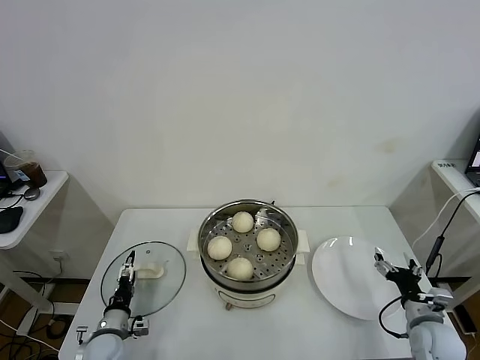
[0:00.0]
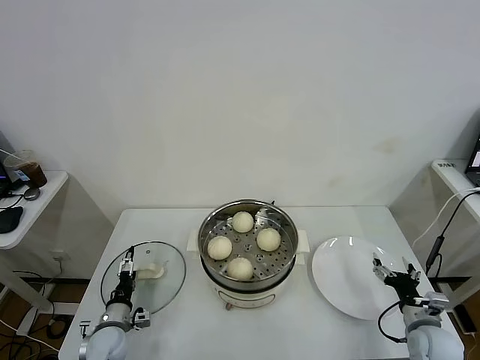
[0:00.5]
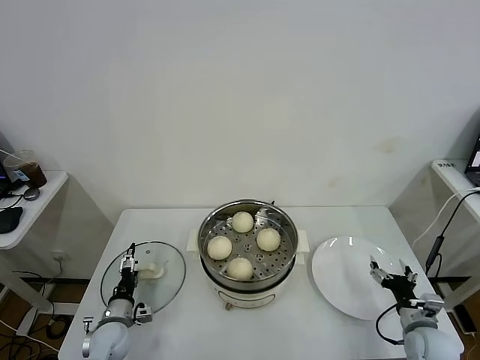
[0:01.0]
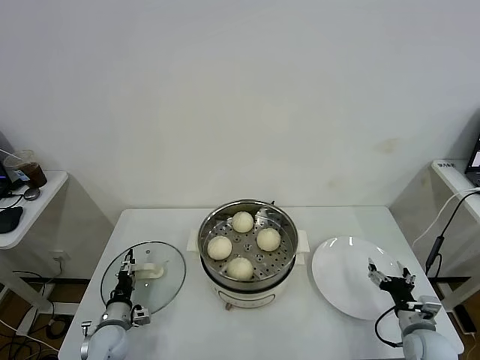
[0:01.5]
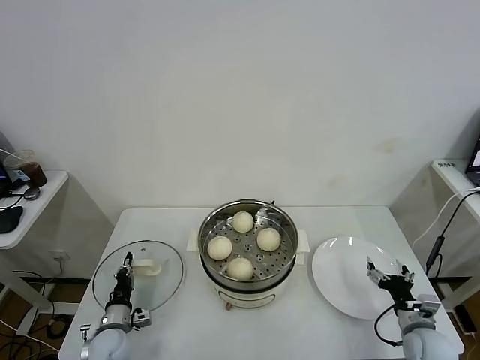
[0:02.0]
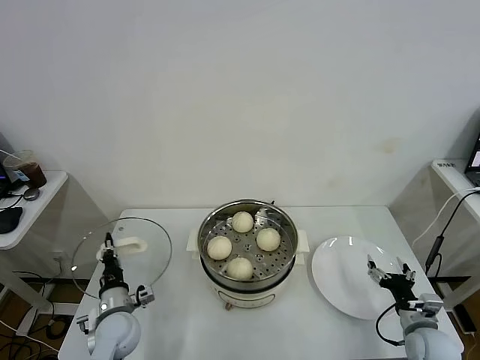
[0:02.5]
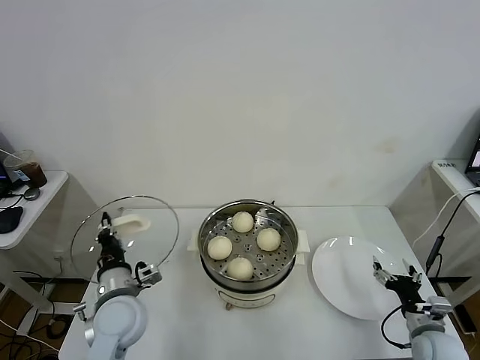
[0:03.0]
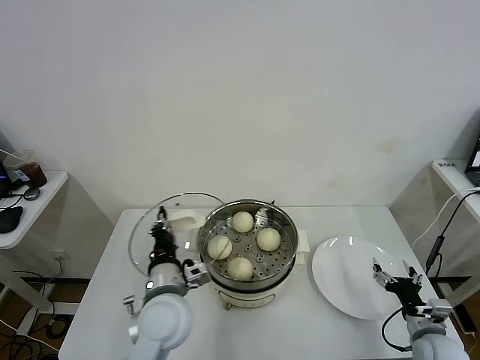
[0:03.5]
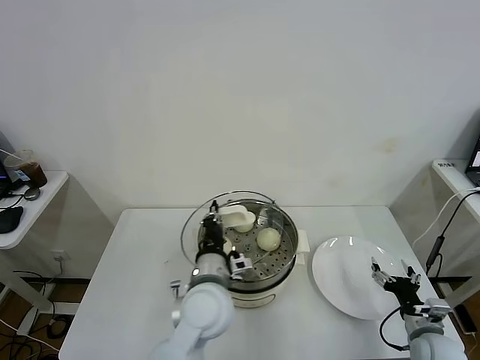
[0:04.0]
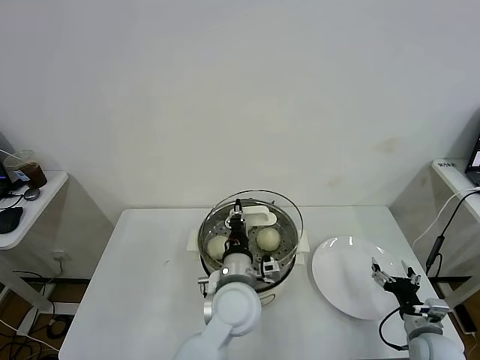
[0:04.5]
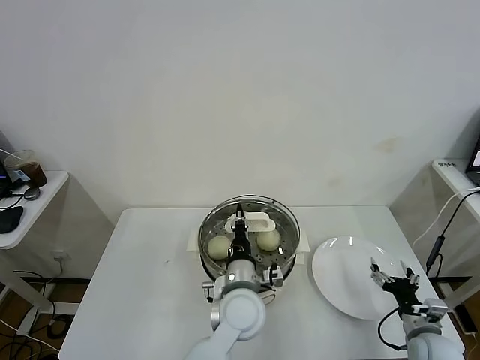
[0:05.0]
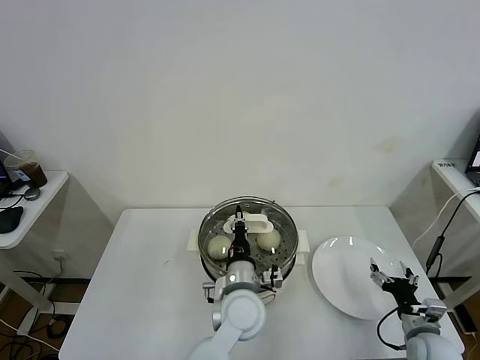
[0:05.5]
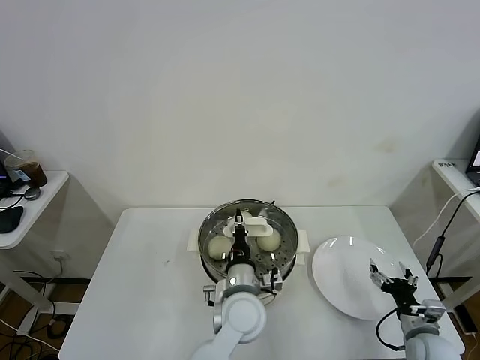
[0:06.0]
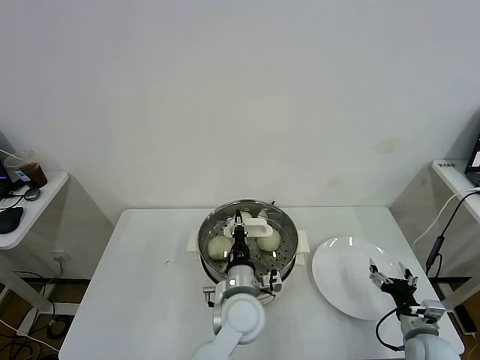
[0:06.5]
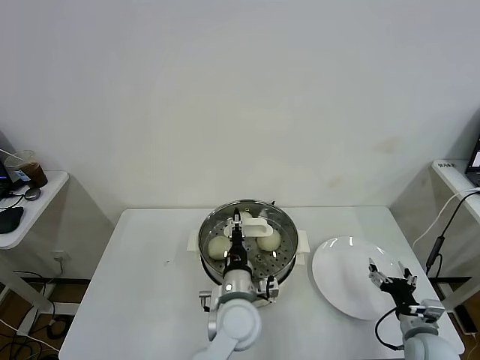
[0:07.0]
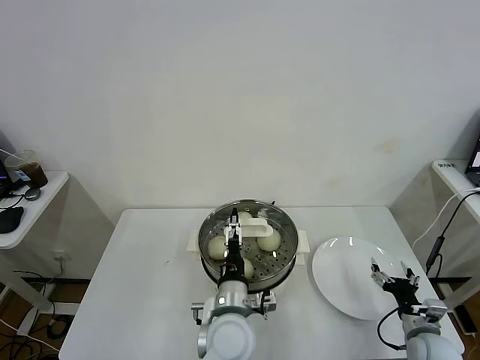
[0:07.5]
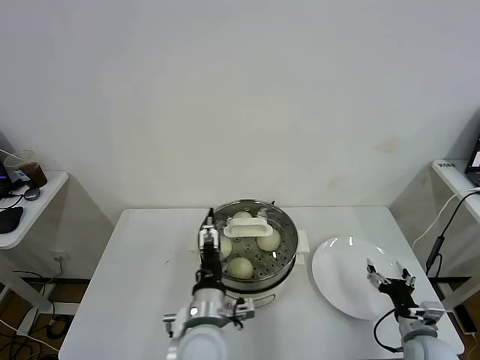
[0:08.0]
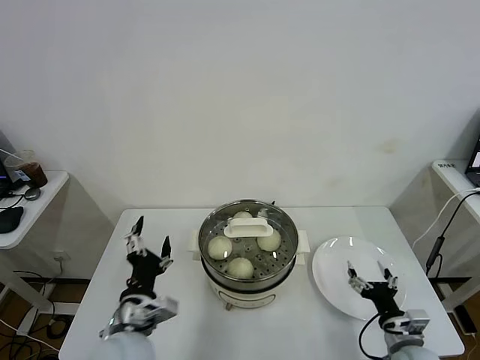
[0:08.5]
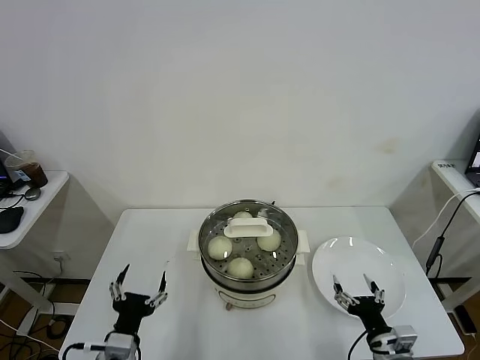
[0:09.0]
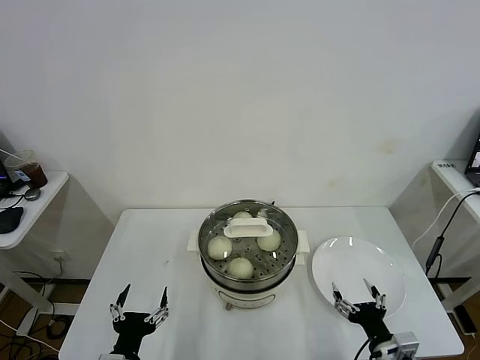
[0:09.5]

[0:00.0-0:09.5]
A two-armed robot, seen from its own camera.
Task of the whole recording: take steamed baozi put them in steamer.
Step, 0:02.5 to 0:07.0: Place the pot lid on the steamer with left gripper.
0:00.0 to 0:02.0: The left gripper closes its fingers.
0:02.0 to 0:04.0: The left gripper goes some 35 cm to the right and upward.
0:04.0 to 0:05.5: The left gripper moves to the right and downward, some 10 cm.
0:05.5 to 0:07.5: The left gripper opens up.
0:07.5 to 0:09.5: The left gripper moves to the left and backward, about 25 cm. Meanwhile the right gripper shifts some 15 cm to the left and backward.

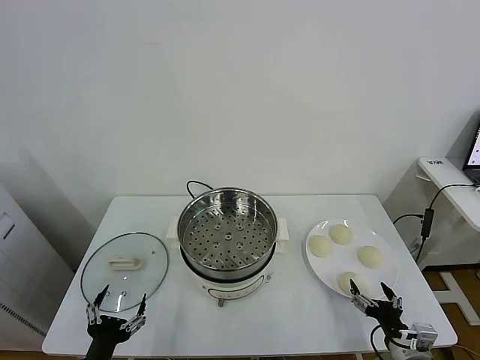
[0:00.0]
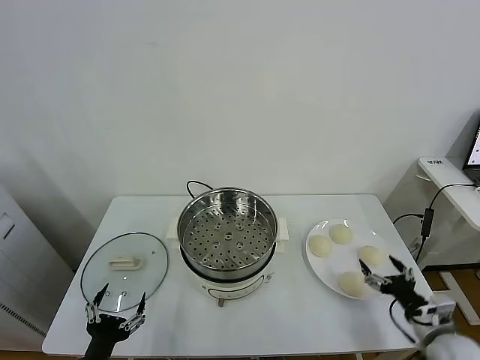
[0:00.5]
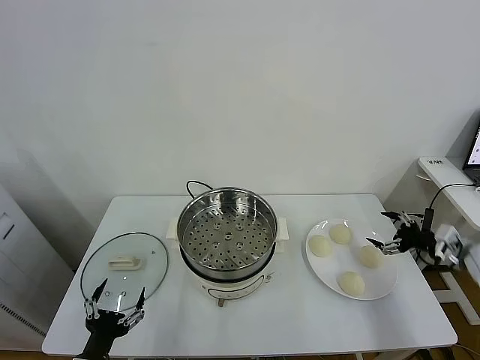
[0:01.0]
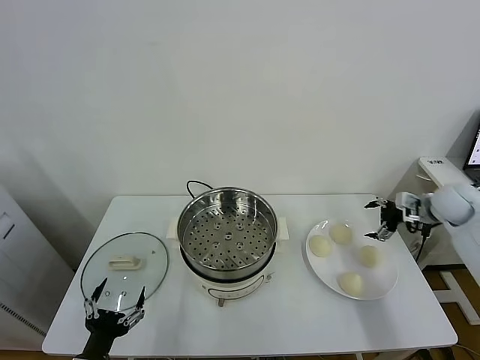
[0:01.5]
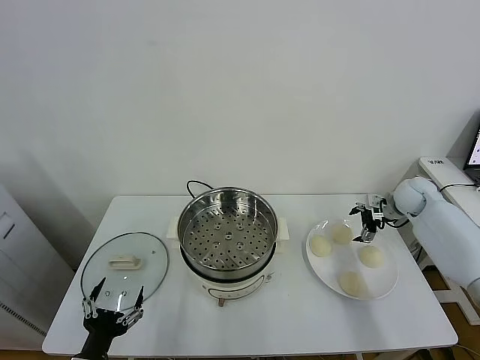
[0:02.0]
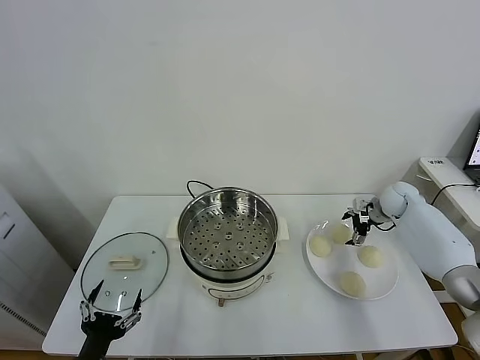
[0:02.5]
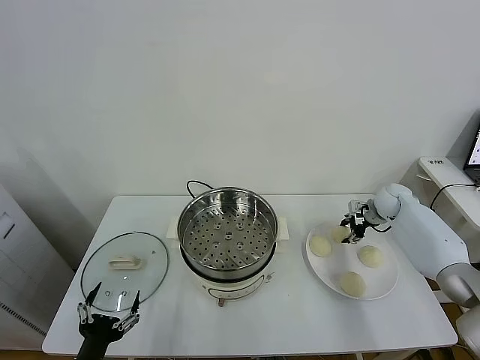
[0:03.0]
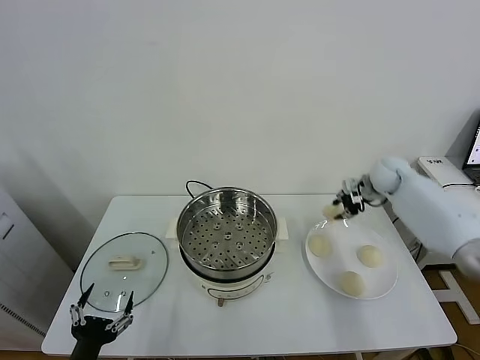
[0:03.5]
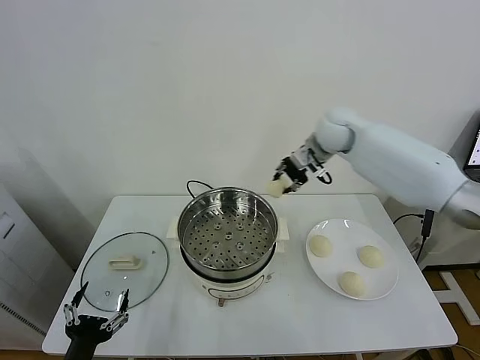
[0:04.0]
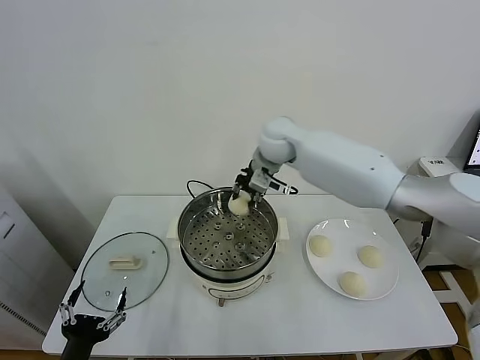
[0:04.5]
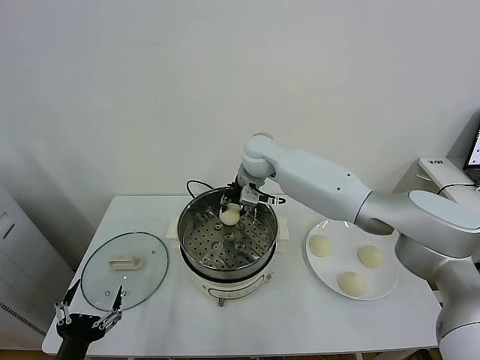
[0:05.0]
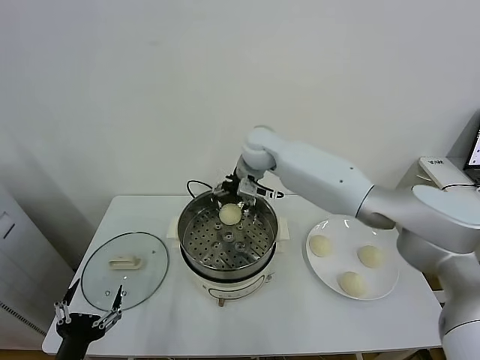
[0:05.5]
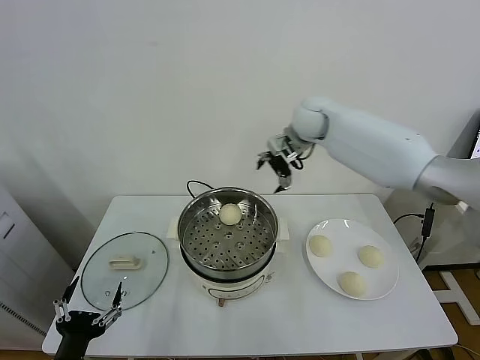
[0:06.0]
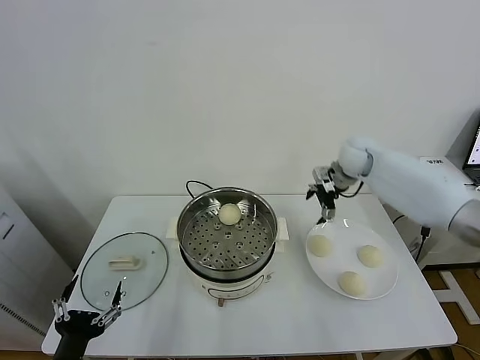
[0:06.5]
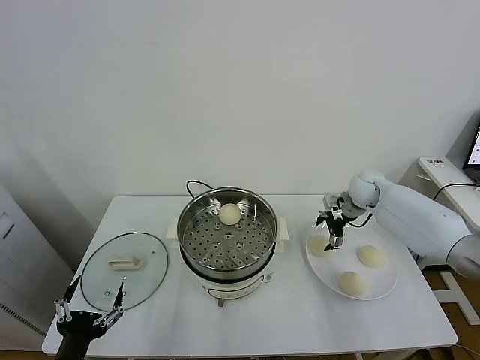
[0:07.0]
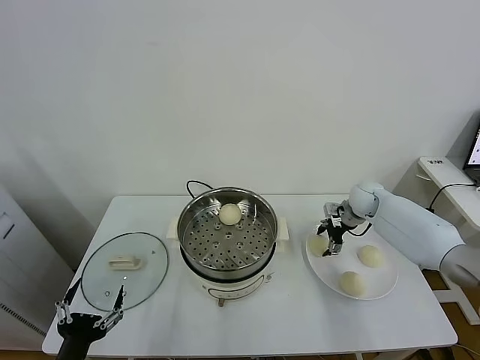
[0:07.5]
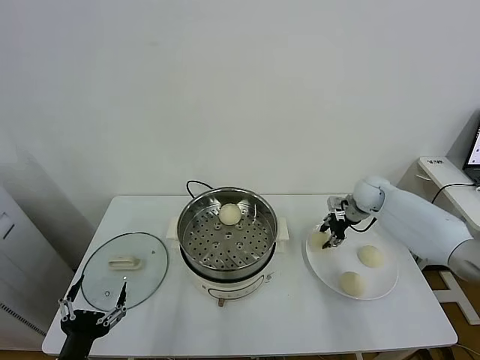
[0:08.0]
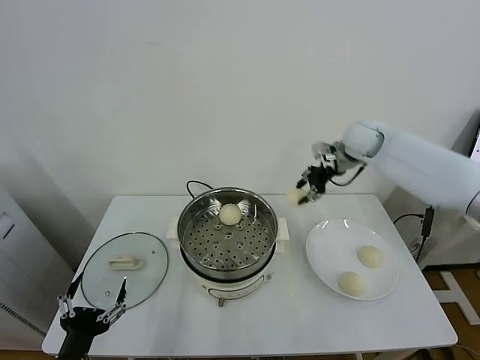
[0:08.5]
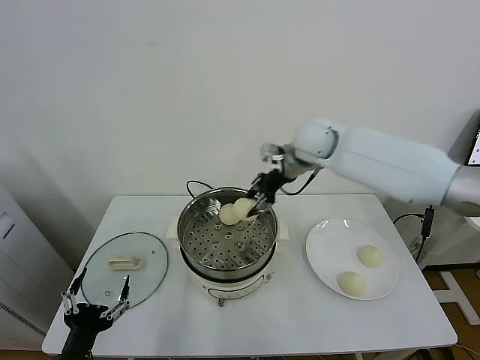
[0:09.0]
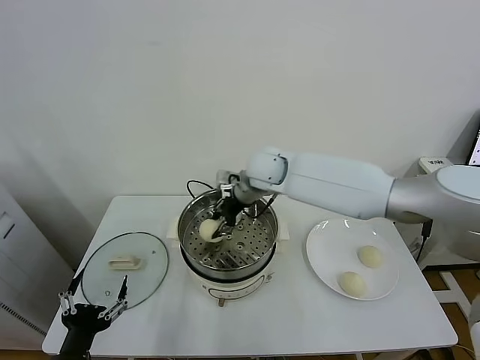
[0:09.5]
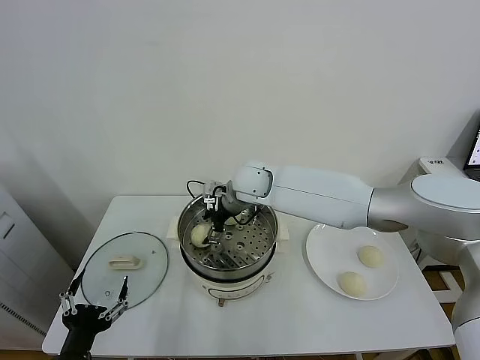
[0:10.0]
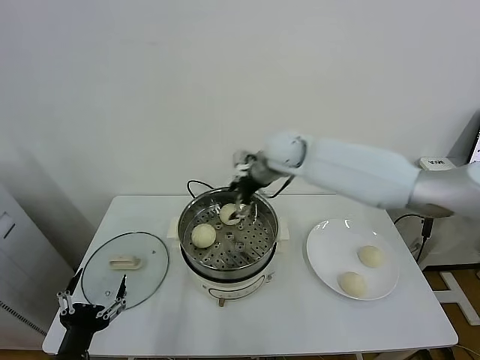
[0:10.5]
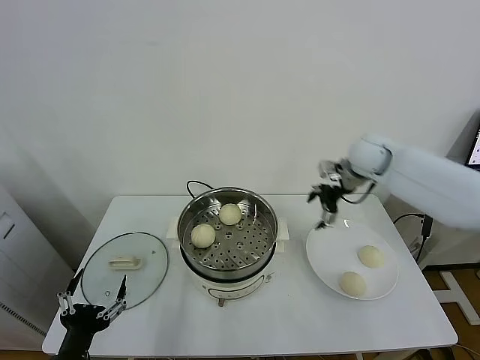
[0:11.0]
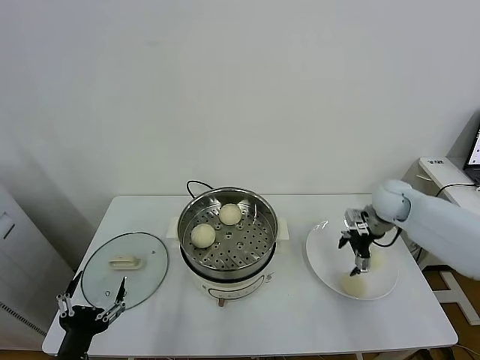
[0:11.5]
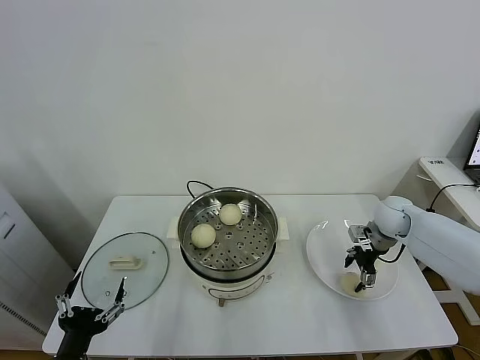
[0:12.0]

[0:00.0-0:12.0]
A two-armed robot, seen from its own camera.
Task of the whole recording: take steamed baozi put them in steamer.
Step, 0:00.0 to 0:02.5: Grasp the baozi in the plate with right gripper.
Step, 0:03.0 to 0:05.0: Place the baozi on the steamer with right gripper.
Step, 0:05.5 to 0:07.5: Grasp the baozi in the plate with right gripper.
Step, 0:08.0 to 0:10.0: Place the baozi on the steamer with right gripper.
0:02.0 to 0:04.0: The right gripper travels to the left and upward by approximately 35 cm, and closes.
0:04.0 to 0:06.0: The right gripper reaches about 15 cm to the left, then returns, and opens up.
0:06.0 to 0:08.0: The right gripper goes roughly 25 cm downward and to the right, and closes up.
0:08.0 to 0:10.0: The right gripper shifts roughly 35 cm to the left, and opens up.
0:10.0 to 0:12.0: The right gripper is displaced to the right by approximately 35 cm.

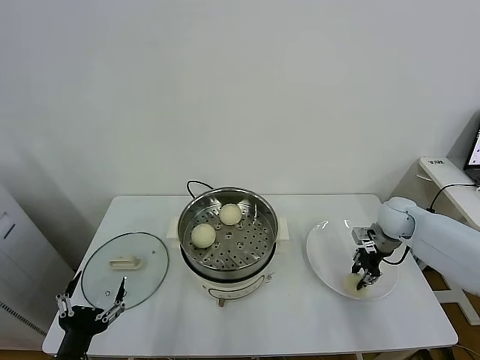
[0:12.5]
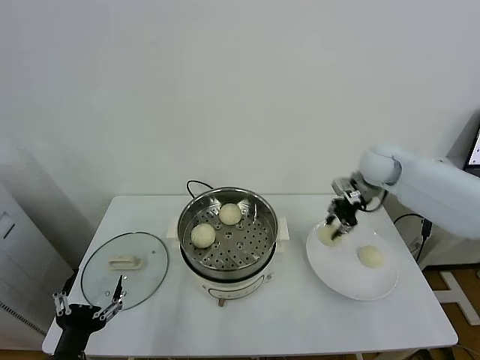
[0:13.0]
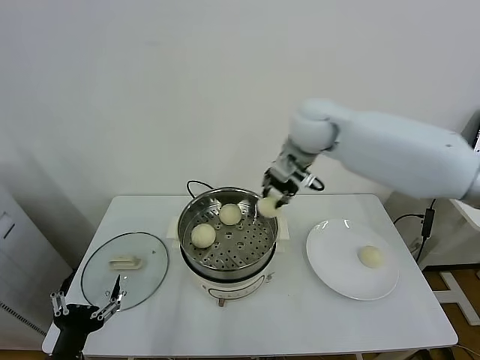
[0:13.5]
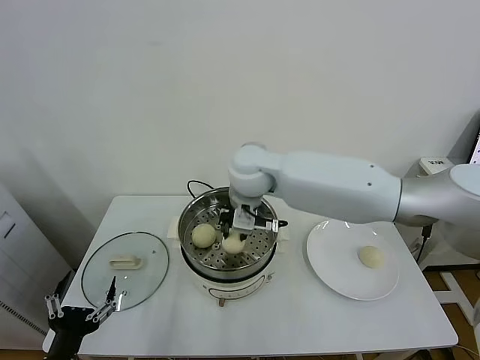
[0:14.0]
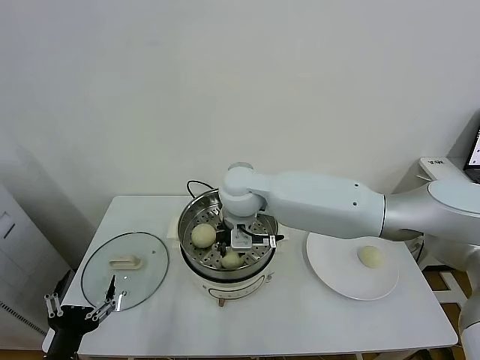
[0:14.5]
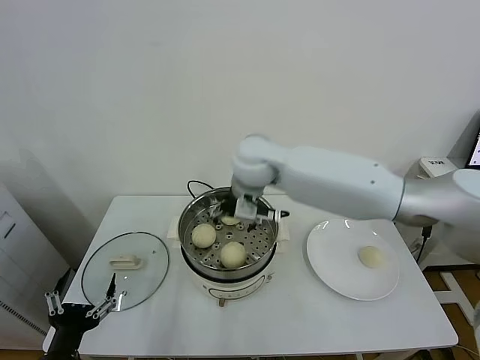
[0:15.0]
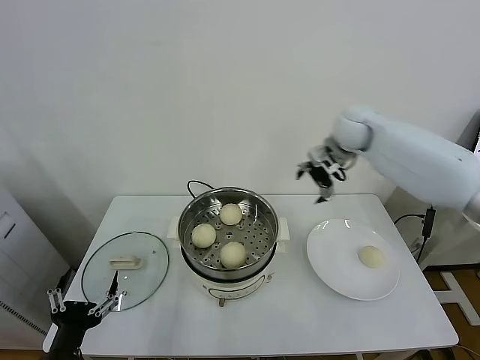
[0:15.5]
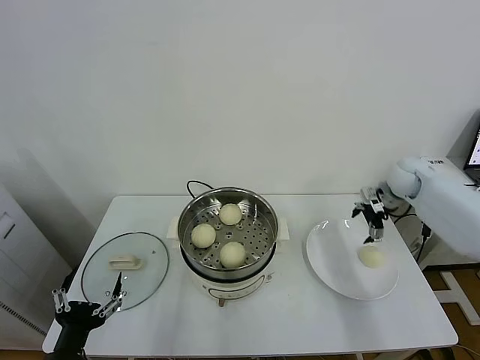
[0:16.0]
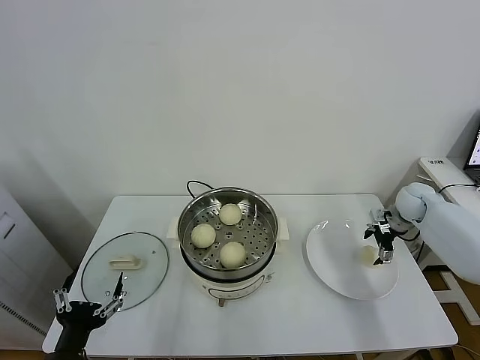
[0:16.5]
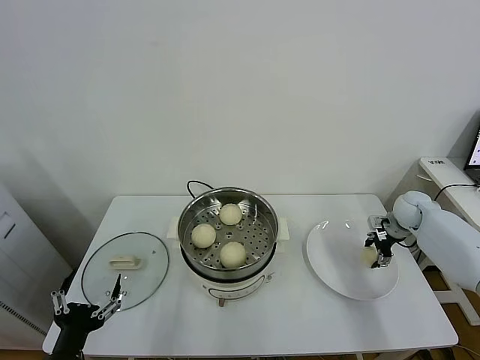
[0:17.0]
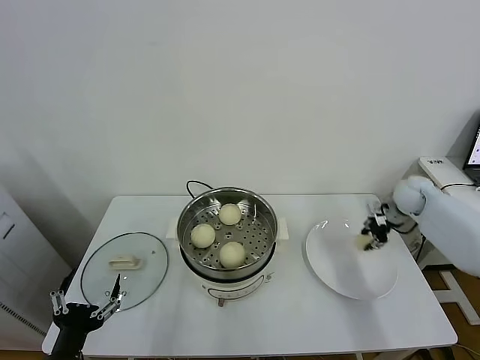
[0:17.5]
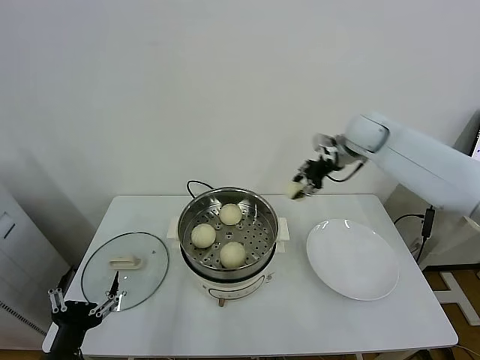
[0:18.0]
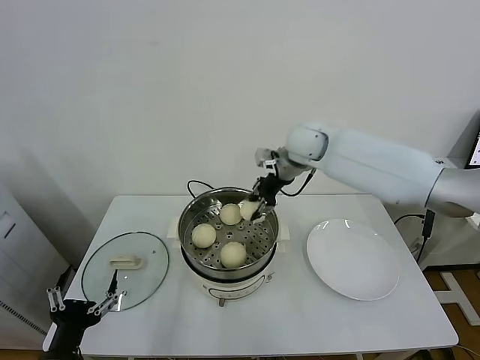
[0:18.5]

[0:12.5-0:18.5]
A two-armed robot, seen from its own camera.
Task of the whole recording: take steamed baozi put them in steamer.
Step, 0:12.5 to 0:14.5: Place the baozi on the steamer with right gripper.
Step, 0:15.0 to 0:17.0: Grasp the baozi in the plate with right gripper.
0:12.5 to 0:14.5: The right gripper moves to the left, approximately 40 cm.
0:14.5 to 0:16.5: The right gripper shifts some 50 cm to the right, and opens.
0:16.5 to 0:18.5: The right gripper travels to the left and upward by approximately 35 cm, and closes up.
